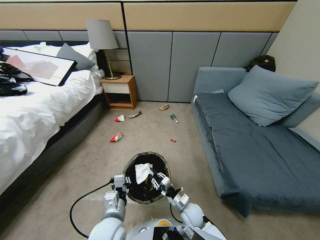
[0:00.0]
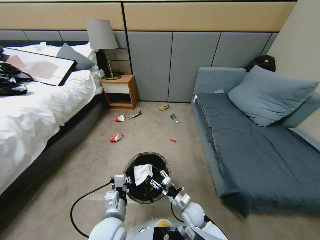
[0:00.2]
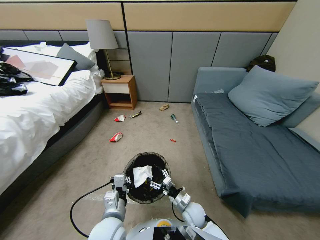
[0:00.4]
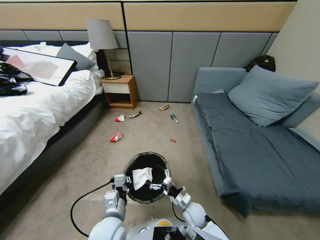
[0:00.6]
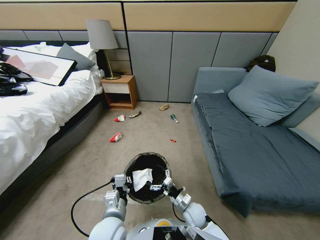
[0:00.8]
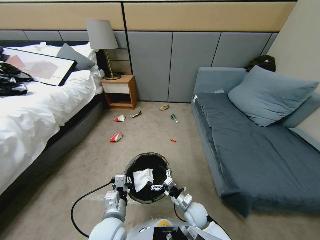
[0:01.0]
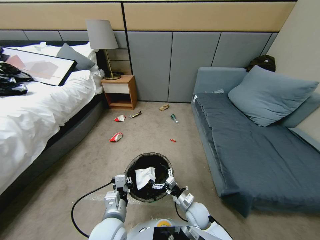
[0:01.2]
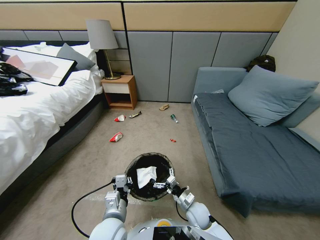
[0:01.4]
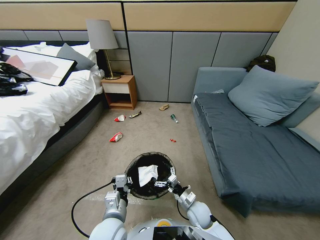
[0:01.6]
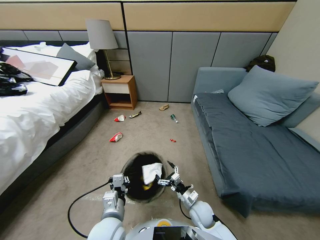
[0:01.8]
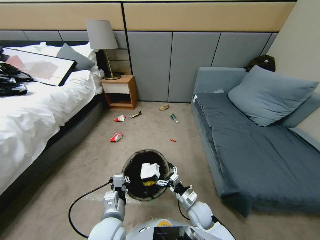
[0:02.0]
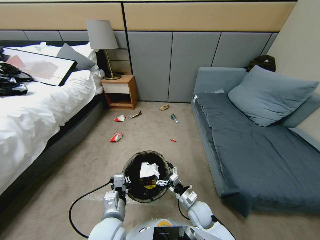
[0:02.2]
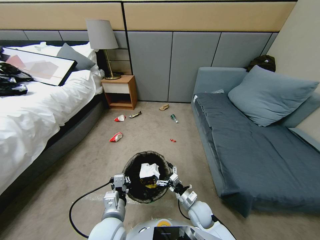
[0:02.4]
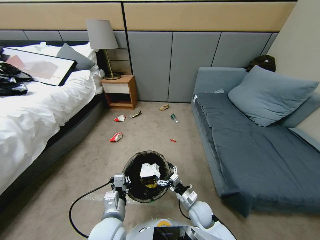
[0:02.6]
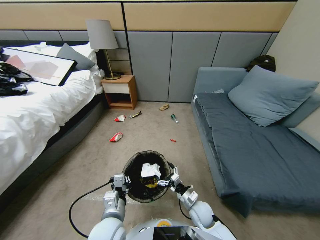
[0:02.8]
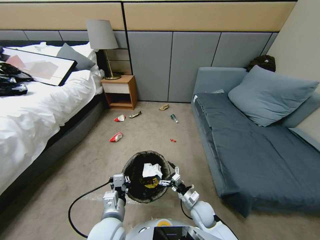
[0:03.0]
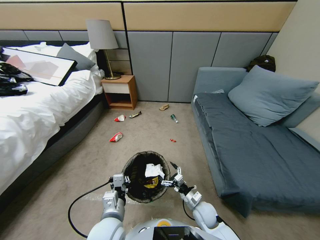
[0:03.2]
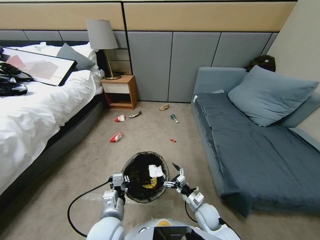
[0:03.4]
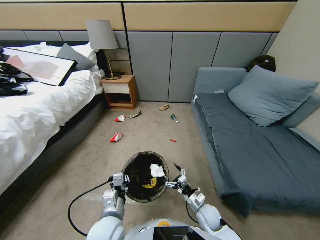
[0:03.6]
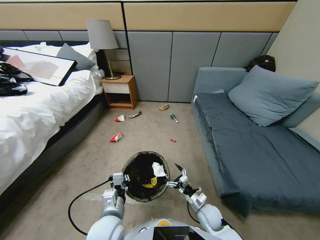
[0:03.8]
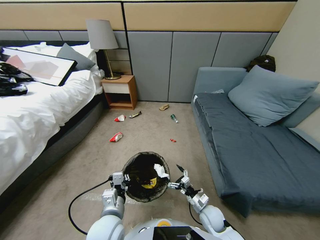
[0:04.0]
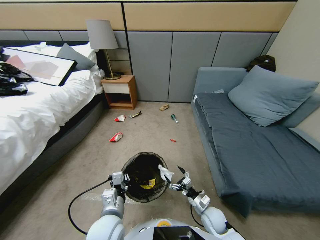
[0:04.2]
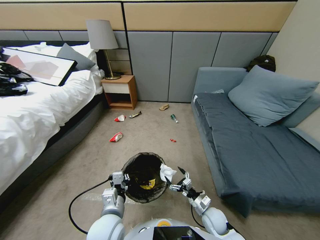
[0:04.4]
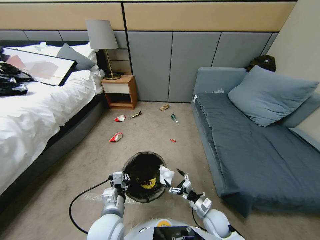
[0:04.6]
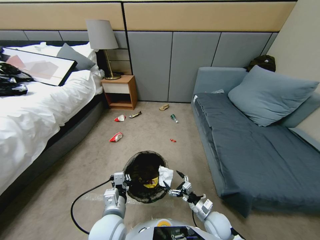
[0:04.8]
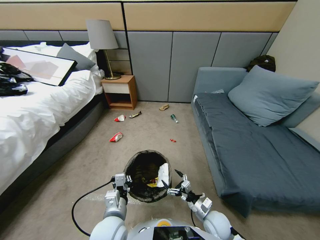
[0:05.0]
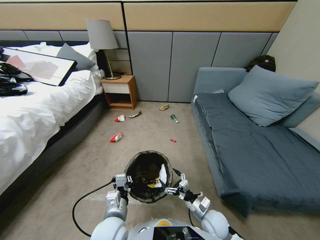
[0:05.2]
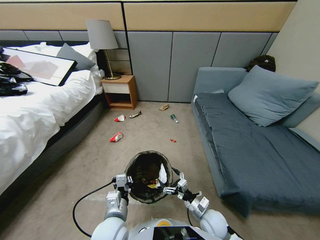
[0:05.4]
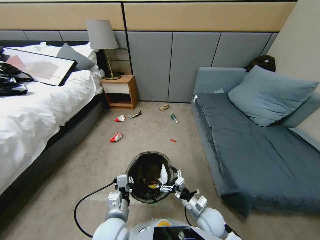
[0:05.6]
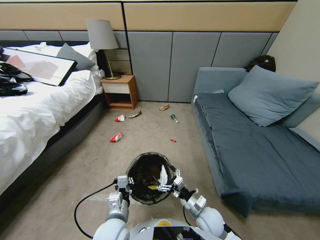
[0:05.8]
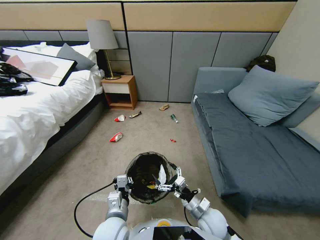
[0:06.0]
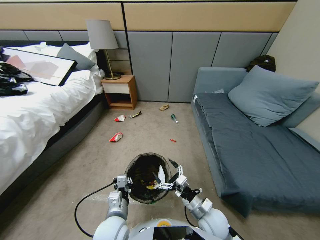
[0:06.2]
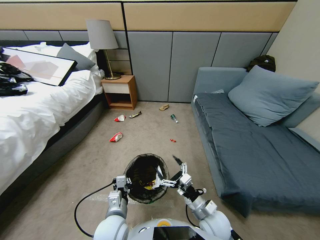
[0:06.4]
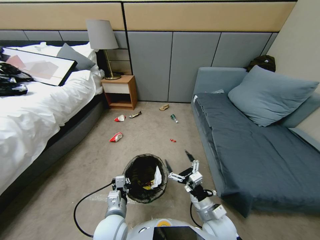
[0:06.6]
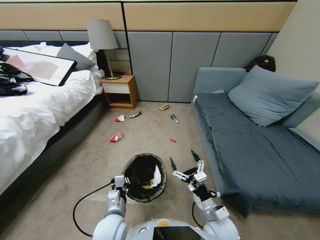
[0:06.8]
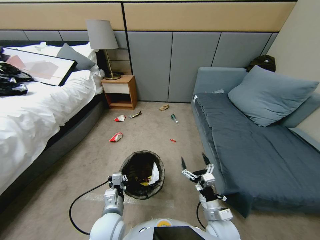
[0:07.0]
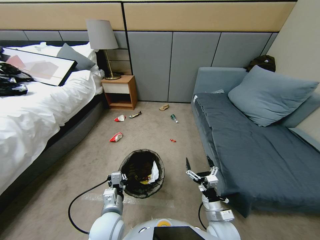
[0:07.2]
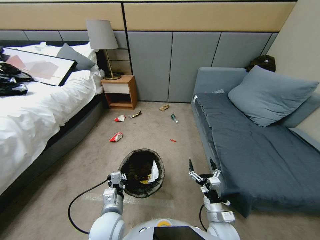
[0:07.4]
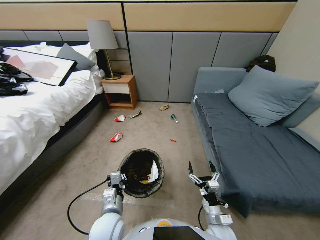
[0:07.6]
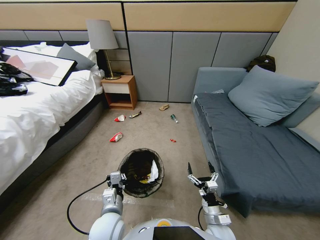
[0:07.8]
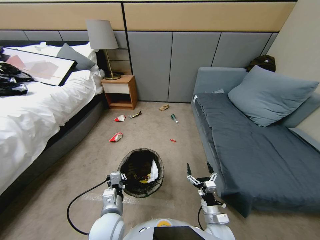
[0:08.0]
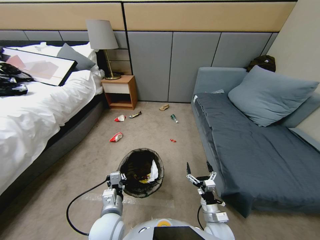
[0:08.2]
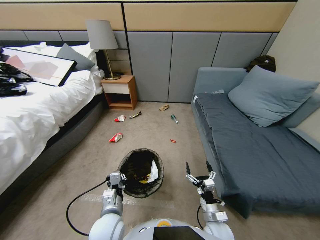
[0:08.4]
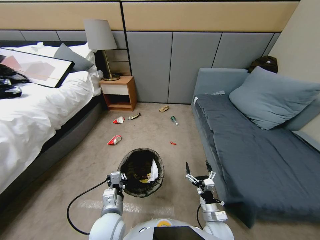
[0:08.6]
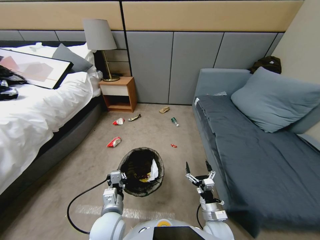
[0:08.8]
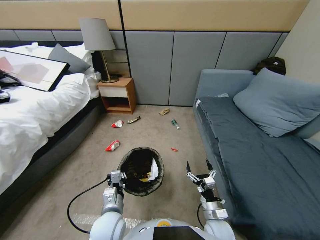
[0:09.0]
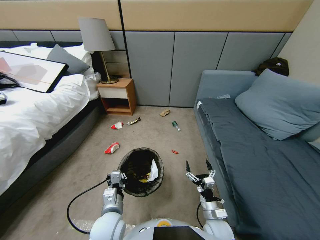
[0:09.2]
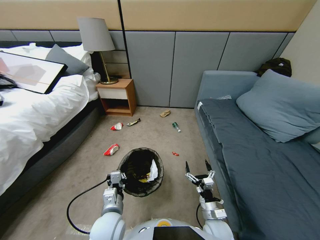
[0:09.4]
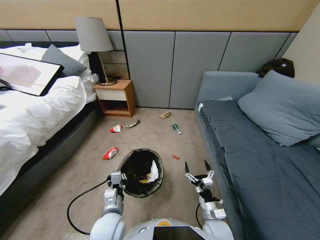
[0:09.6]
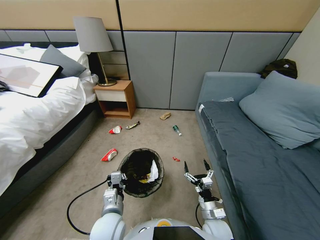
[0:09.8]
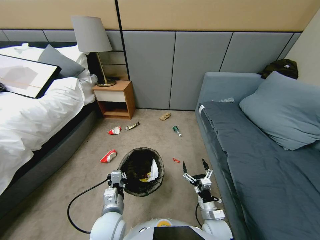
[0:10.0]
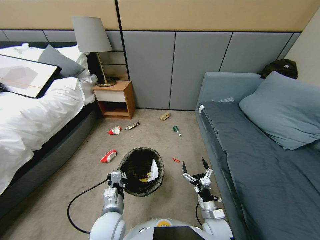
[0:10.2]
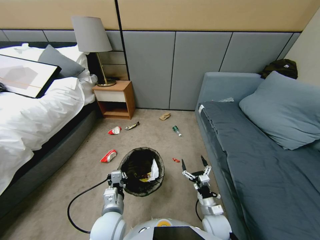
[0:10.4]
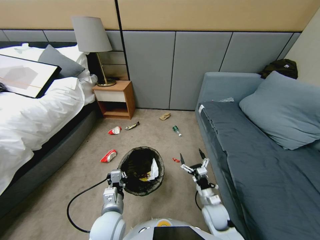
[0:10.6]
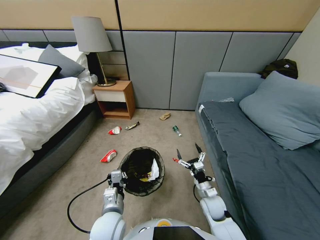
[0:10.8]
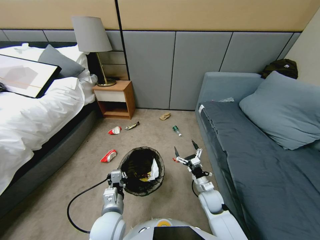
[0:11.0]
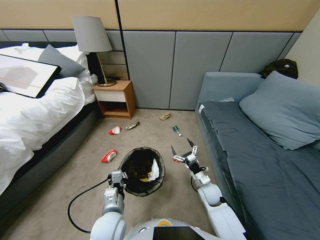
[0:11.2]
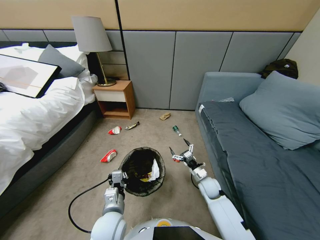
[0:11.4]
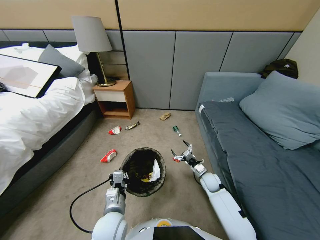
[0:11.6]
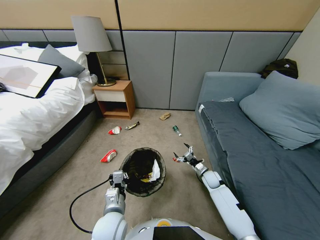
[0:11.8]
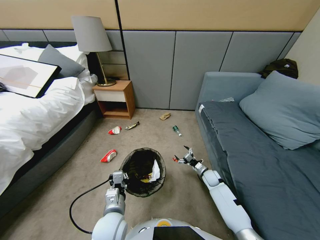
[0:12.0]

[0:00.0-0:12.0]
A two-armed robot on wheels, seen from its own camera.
Task of the whole recording: Pick up the trash bin, then pick up the garbage from the floor and place it into the trash bin.
0:00.0 to 0:01.6: The right gripper opens.
0:01.6 to 0:03.0: The grippers make only small movements.
0:03.0 to 0:04.4: The right gripper shifts by approximately 5 cm.
0:04.4 to 0:06.0: The right gripper heads upward and to the left, covering approximately 10 cm.
0:06.0 to 0:07.6: The right gripper changes place by approximately 5 cm.
0:09.0 to 0:10.4: There are only small adjustments of the grippers.
0:10.4 to 0:12.0: The right gripper moves forward and to the right, about 25 cm.

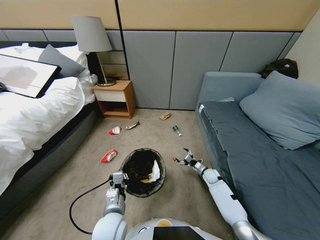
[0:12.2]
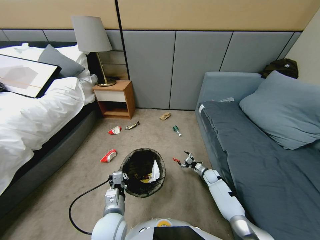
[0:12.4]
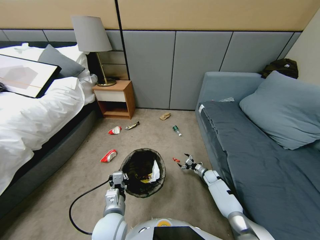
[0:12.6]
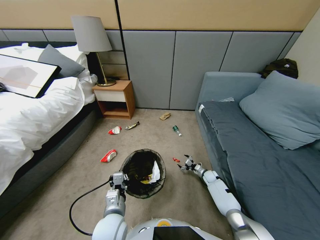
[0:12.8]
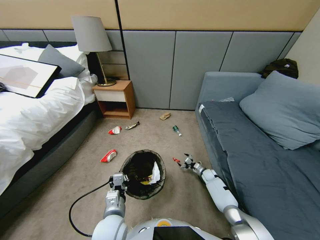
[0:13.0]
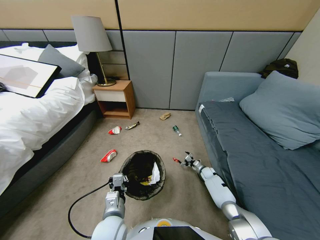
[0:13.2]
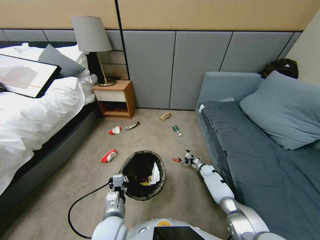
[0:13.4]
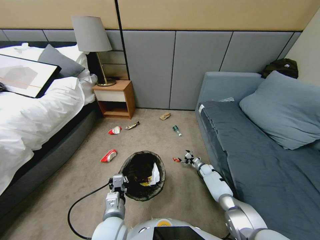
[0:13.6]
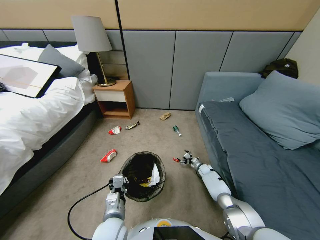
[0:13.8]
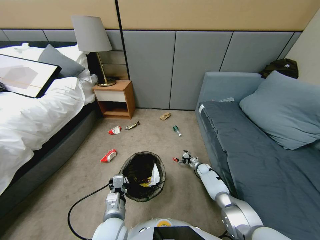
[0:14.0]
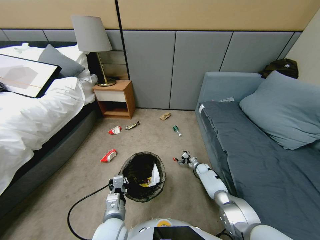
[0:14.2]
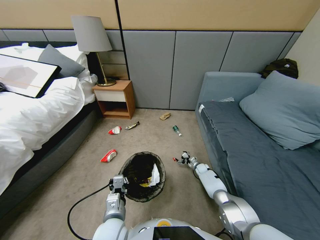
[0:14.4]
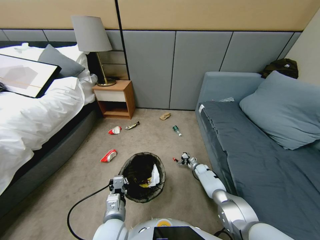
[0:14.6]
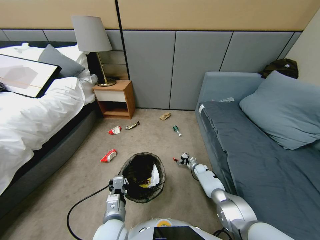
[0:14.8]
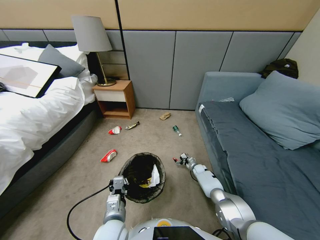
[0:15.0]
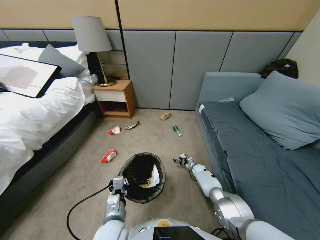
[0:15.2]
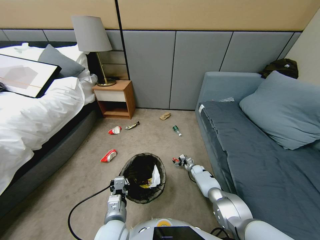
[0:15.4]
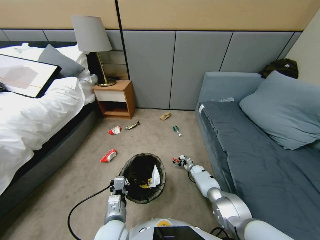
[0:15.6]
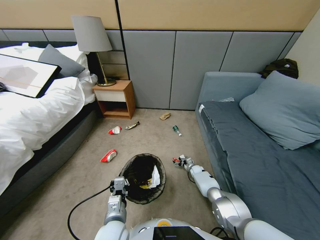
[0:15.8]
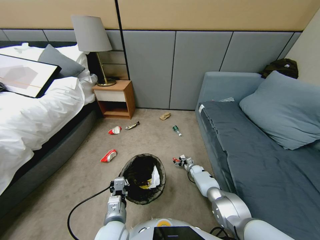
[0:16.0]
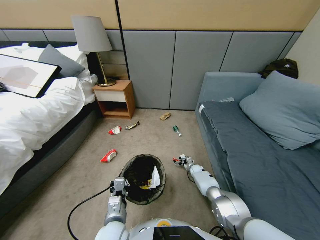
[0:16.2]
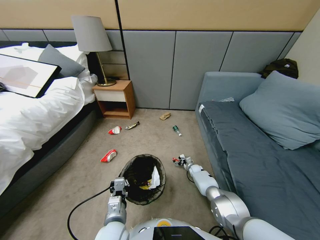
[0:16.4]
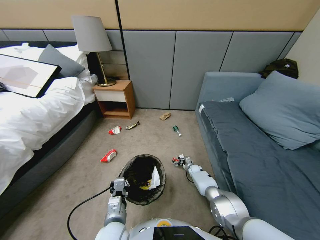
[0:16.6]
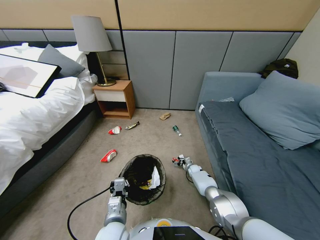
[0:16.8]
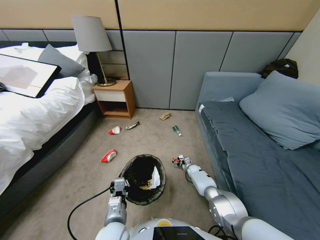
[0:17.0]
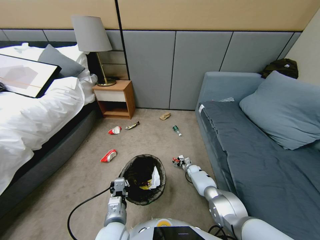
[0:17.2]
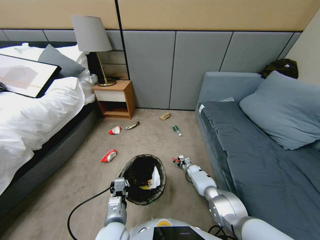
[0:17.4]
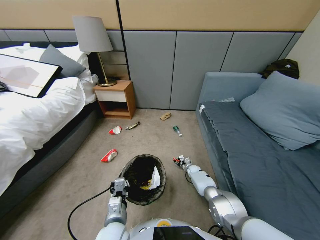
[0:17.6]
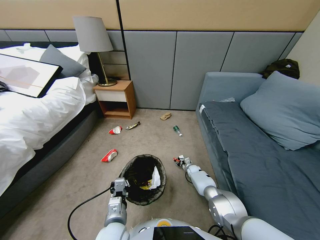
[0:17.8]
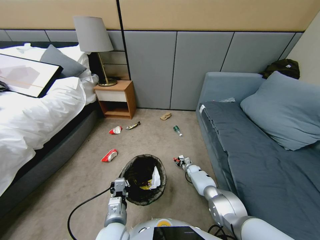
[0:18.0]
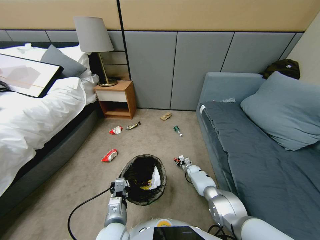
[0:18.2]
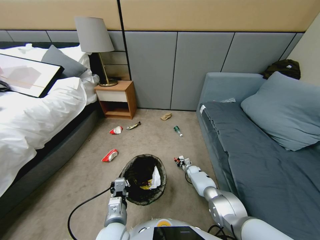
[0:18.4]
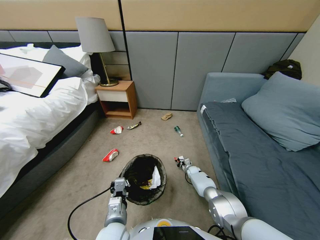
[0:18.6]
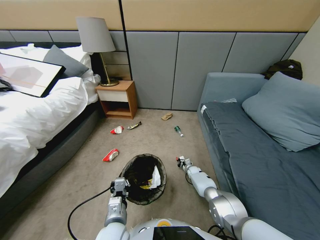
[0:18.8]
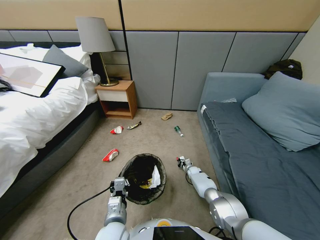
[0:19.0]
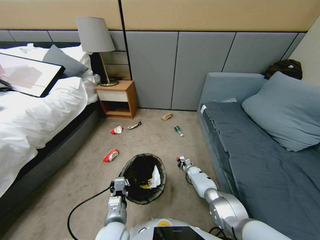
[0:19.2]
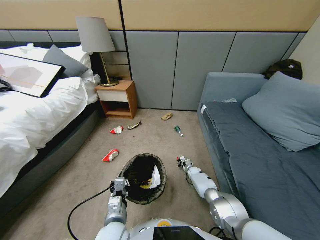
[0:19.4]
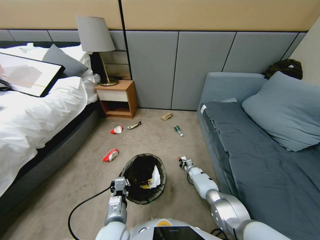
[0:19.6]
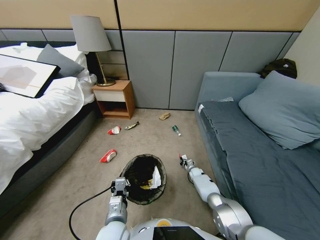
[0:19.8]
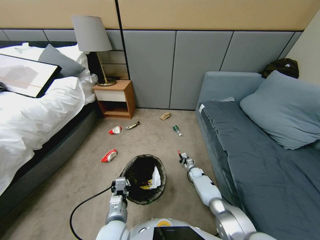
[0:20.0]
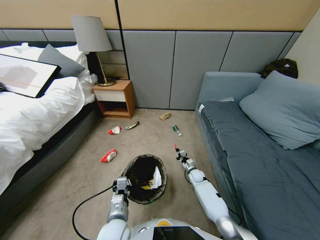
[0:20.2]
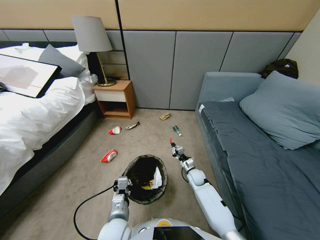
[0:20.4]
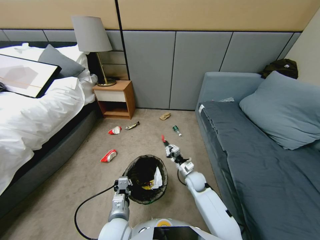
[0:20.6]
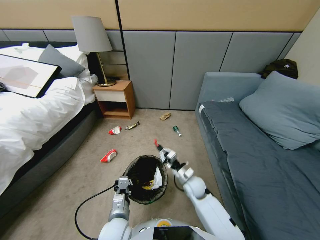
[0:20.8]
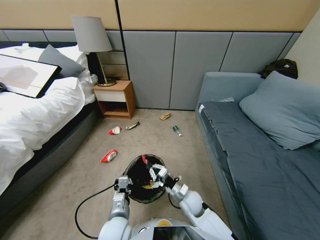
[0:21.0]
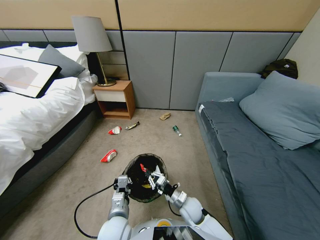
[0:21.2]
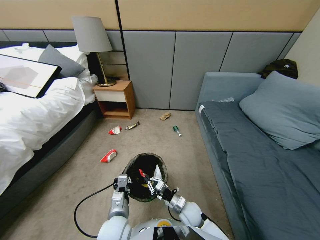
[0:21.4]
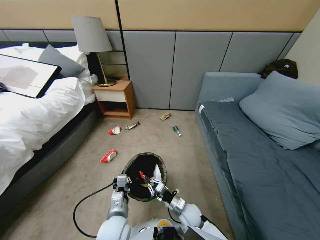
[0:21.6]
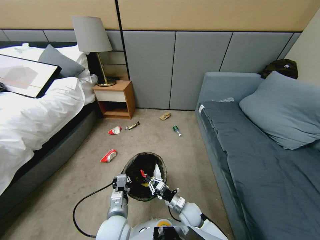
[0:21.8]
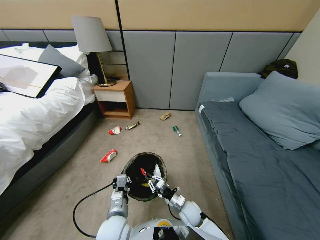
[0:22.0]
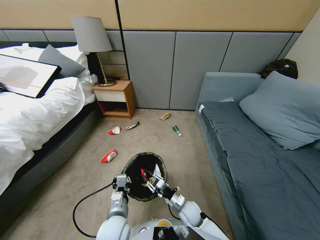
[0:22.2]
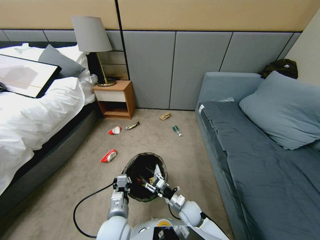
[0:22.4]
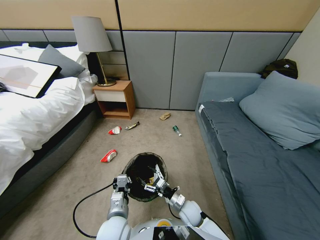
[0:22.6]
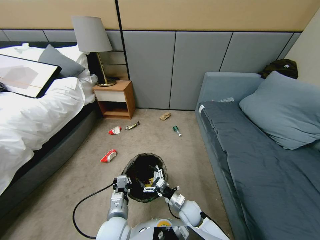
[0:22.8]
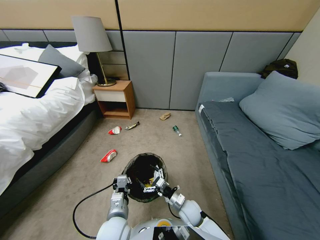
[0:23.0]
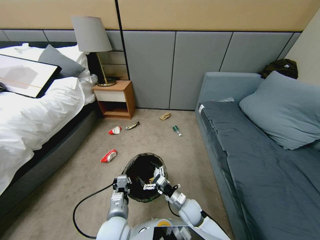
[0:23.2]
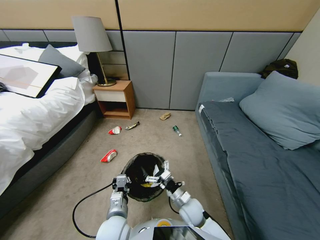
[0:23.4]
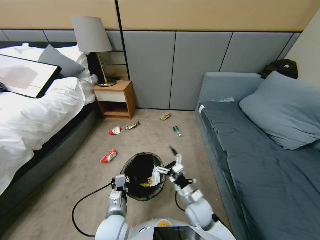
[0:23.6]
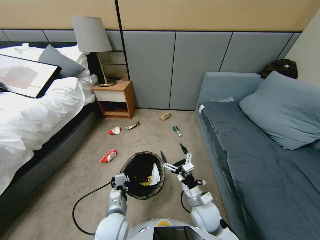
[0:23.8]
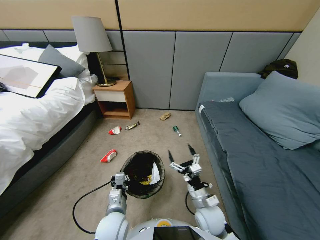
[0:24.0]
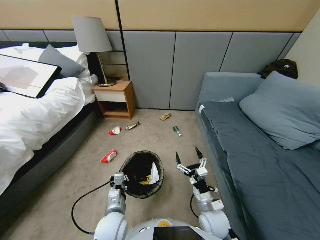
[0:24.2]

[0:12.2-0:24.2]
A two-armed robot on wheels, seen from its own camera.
Task of the whole recording: Pick up the trash bin, then pick up the garbage from the floor and place it into the trash bin.
0:12.2 to 0:13.8: The right gripper moves forward, some 5 cm.
0:13.8 to 0:15.2: The grippers move only a little.
0:15.2 to 0:16.6: The grippers make only small movements.
0:16.6 to 0:18.2: The right gripper closes up.
0:18.2 to 0:19.8: The right gripper closes up.
0:19.8 to 0:21.2: The right gripper goes some 30 cm backward, upward and to the left.
0:21.2 to 0:22.6: The right gripper opens.
0:22.6 to 0:24.2: The right gripper moves upward, to the right and backward, some 10 cm.
